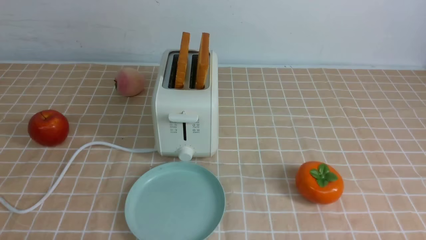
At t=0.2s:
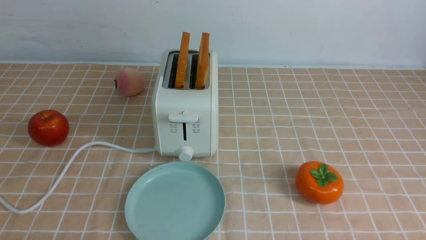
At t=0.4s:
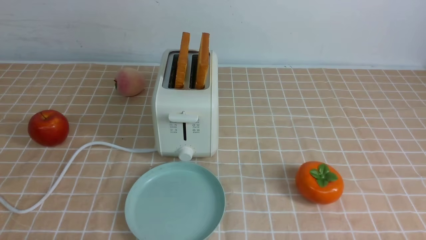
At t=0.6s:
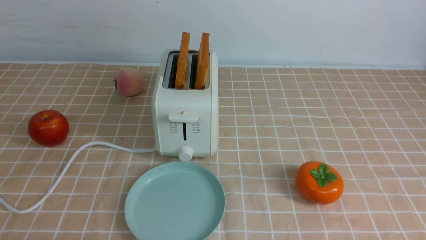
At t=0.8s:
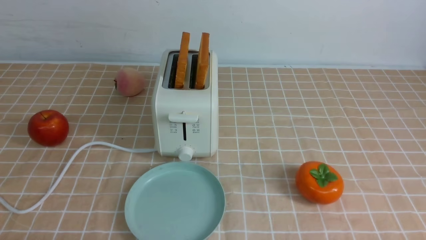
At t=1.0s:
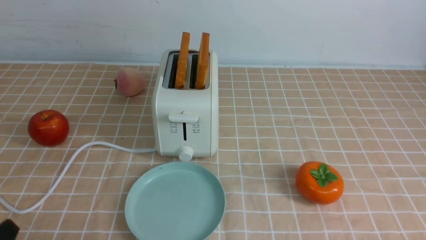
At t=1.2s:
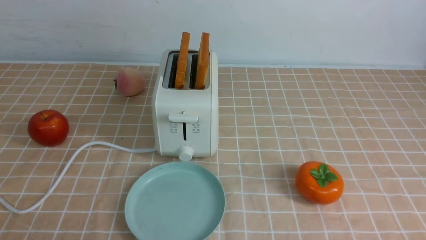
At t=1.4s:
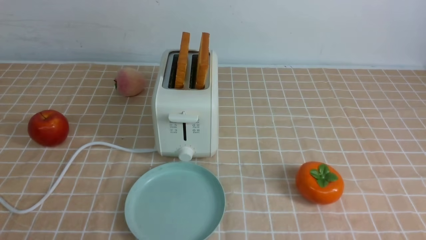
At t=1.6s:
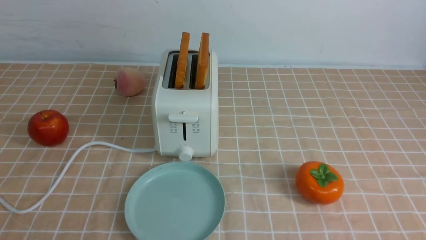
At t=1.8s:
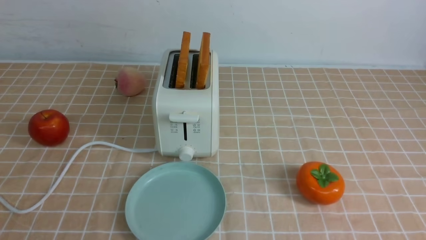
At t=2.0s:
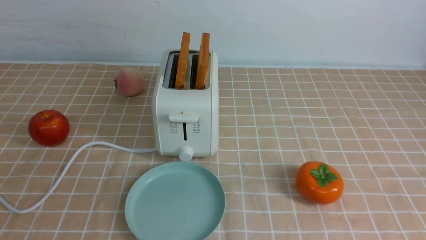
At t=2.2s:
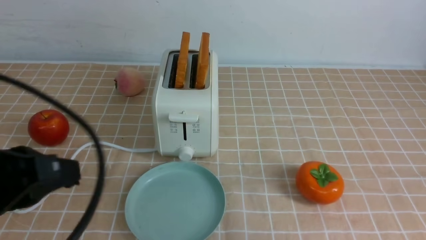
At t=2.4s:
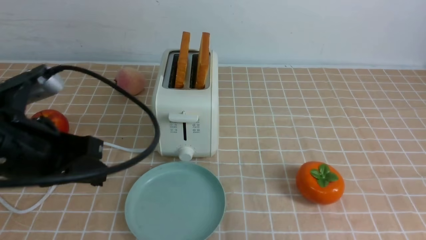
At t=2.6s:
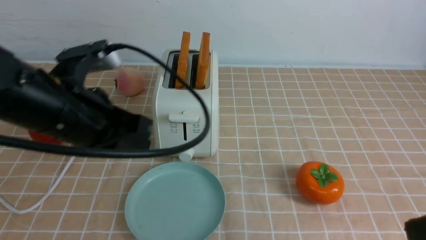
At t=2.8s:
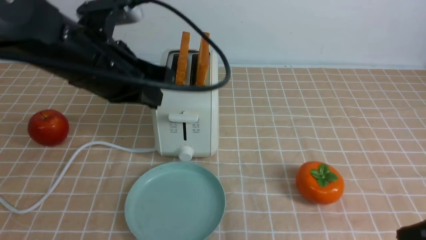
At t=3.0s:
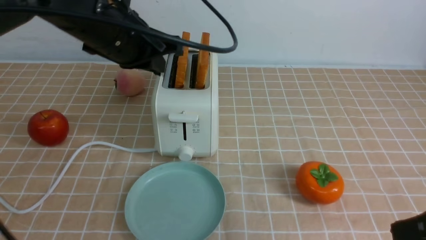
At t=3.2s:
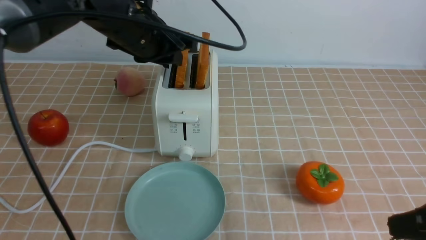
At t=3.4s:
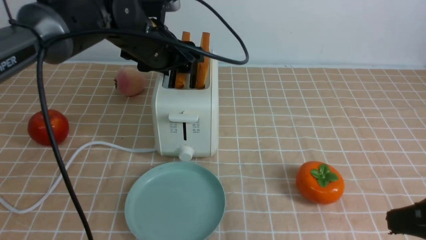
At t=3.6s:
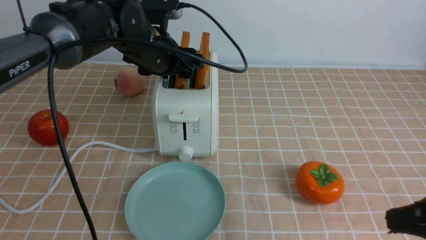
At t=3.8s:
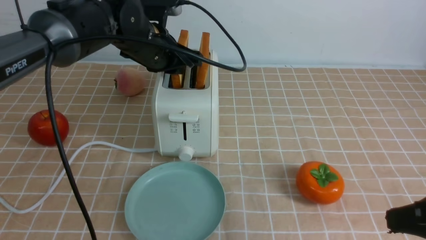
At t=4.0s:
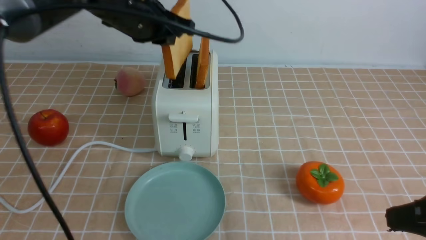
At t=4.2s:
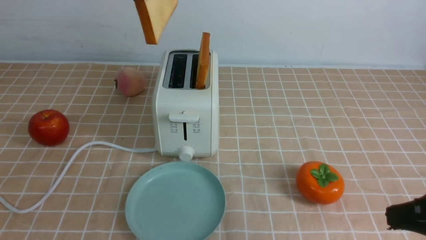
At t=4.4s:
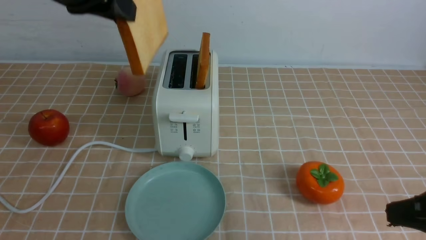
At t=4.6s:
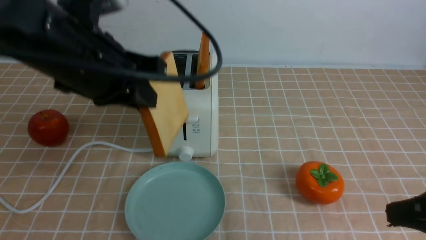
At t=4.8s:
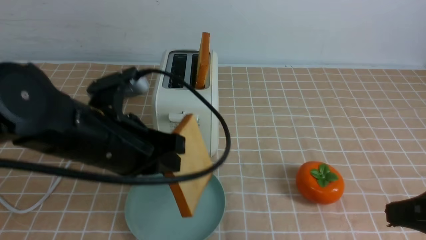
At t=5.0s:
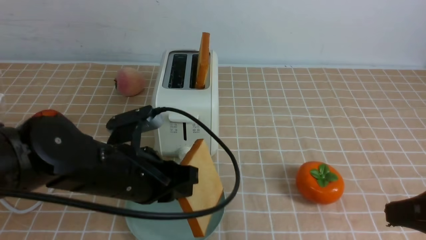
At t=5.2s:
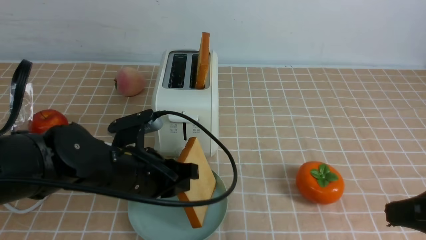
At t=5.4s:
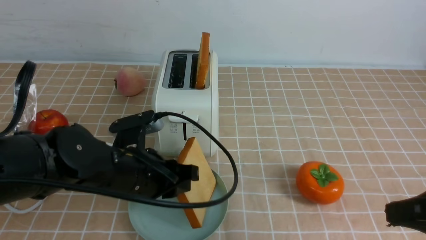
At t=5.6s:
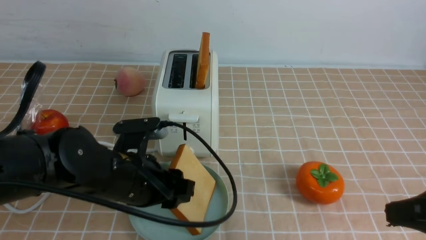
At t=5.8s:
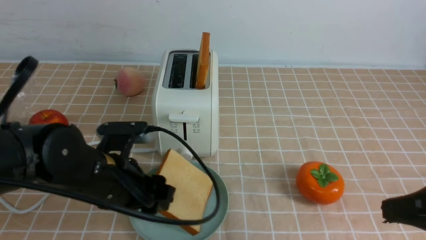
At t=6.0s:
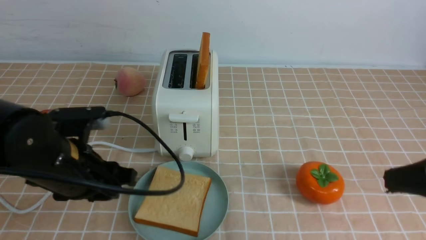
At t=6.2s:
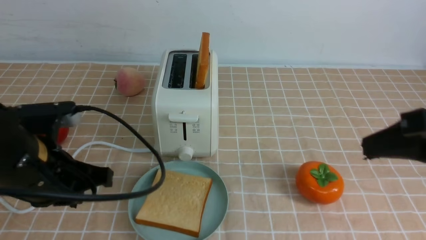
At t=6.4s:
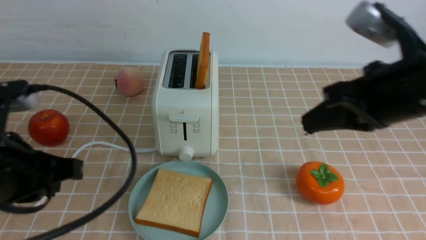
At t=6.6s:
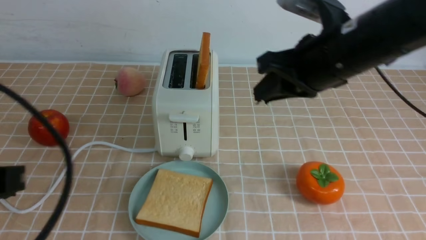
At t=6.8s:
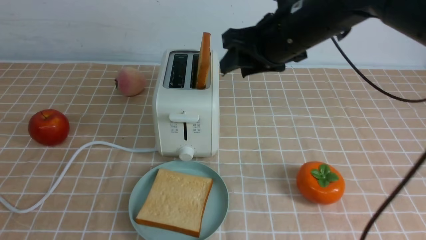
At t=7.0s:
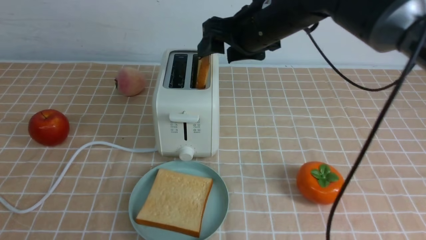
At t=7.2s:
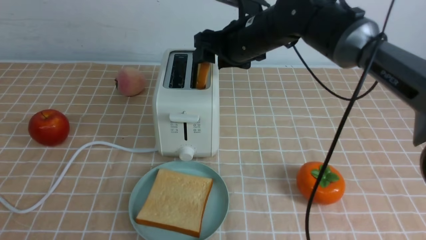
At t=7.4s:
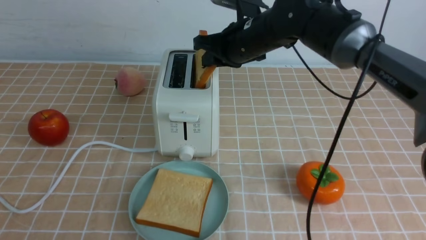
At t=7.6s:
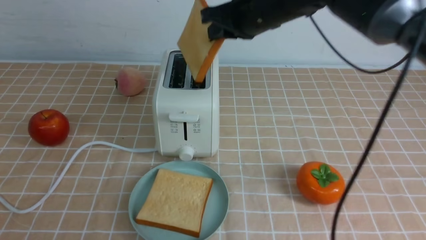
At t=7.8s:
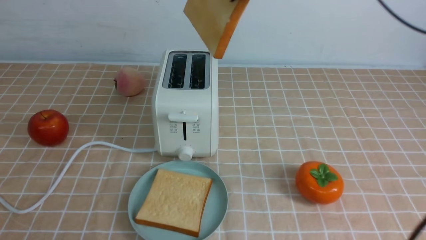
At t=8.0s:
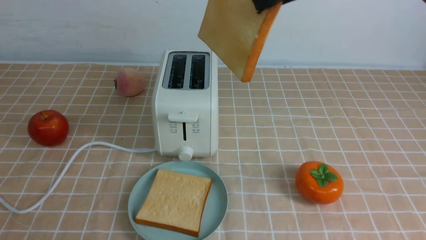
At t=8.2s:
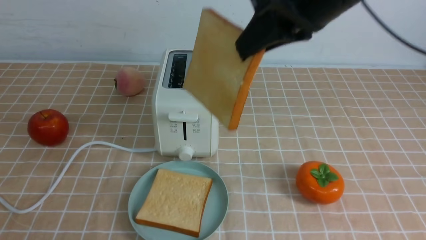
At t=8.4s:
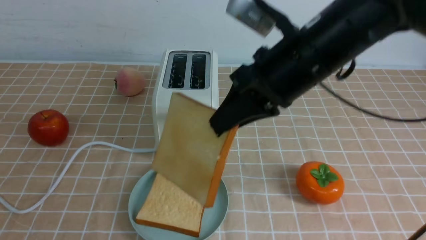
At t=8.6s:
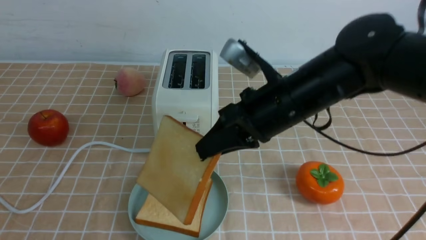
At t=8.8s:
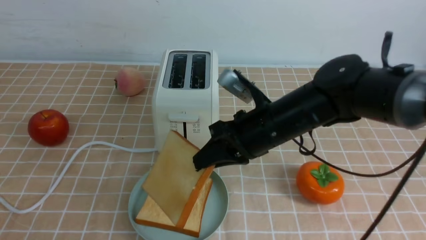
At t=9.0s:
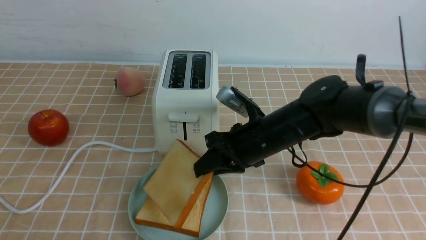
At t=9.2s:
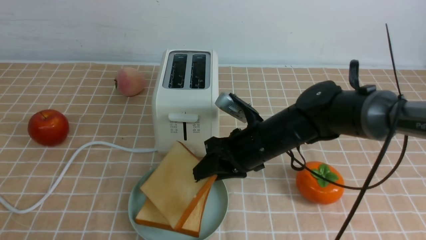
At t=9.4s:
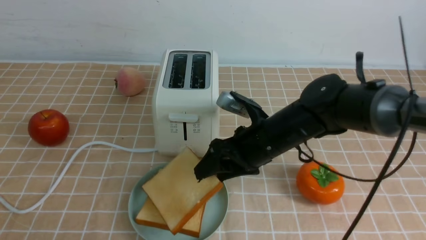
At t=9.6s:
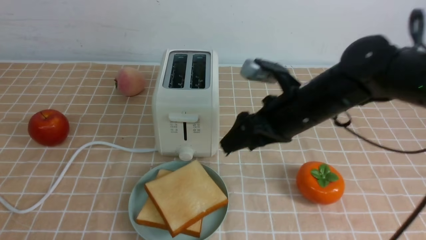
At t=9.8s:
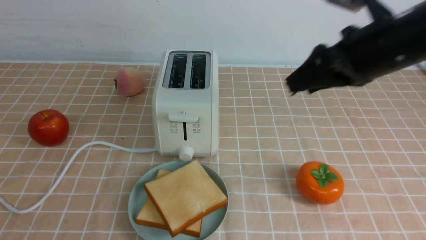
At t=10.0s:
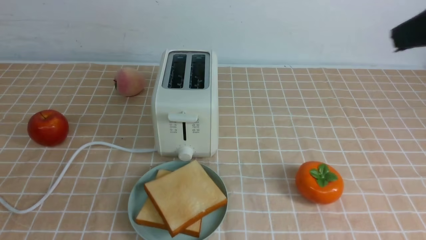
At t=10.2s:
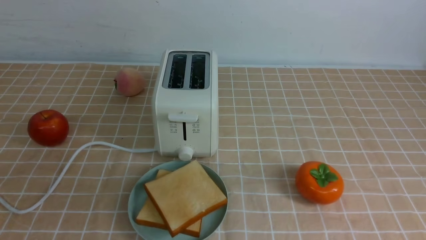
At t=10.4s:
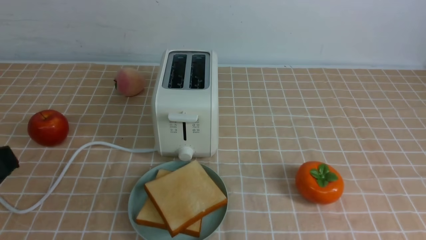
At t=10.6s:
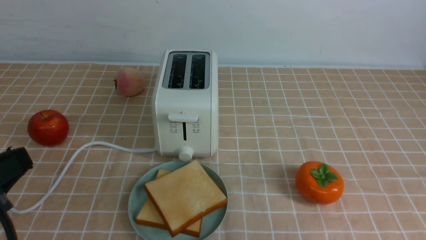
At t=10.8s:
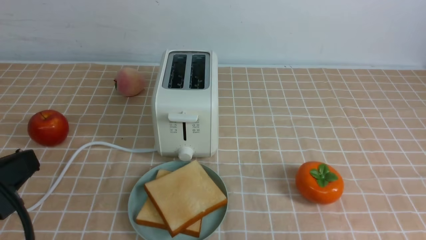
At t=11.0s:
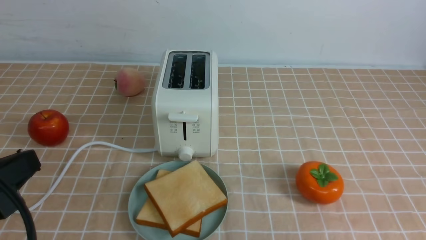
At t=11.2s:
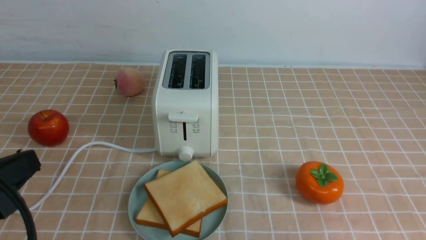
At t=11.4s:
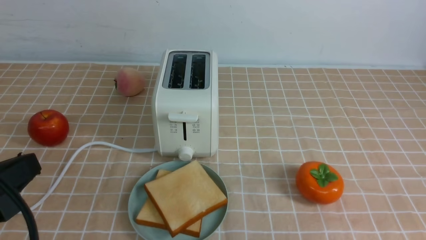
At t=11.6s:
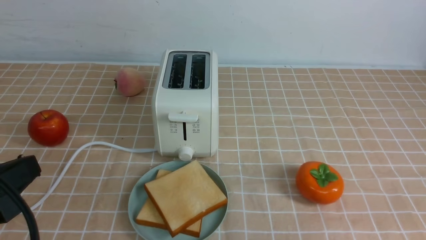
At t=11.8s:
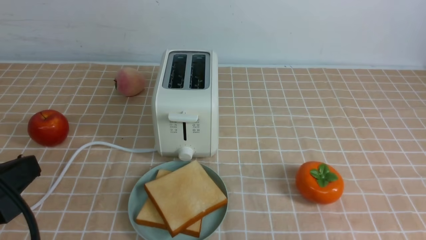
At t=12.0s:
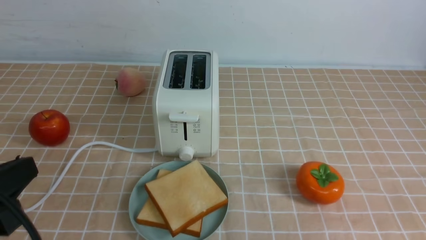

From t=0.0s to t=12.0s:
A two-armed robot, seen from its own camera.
Task of the whole recording: take toasted bread from bread machine on light coffee tablecloth place on plate.
Step, from t=0.0s to t=3.8s: use the left arm to take out a slice of bread.
Step, from t=4.2s to t=5.8s: use the left arm to put a slice of bread into the empty plate.
Step, from t=6.0s to t=7.6s: use the right arm to take out a slice of bread.
Step, from t=7.8s to t=9.4s: use the right arm to put a slice of bread into the plate.
From t=1.6s to t=3.0s: The left gripper goes approximately 35 cm forward, to the right and upward. Meanwhile the right gripper heads upward and forward, covering approximately 10 cm, and closes its fingers.
From t=3.0s to t=4.4s: The left gripper goes approximately 10 cm upward, and opens, then closes once more.
From t=4.4s to t=6.0s: The left gripper travels downward by some 20 cm, and opens up.
From t=6.0s to t=7.6s: The right gripper is displaced forward and to the left by roughly 35 cm, and opens, then closes once more, while the left gripper is displaced backward and to the left by roughly 25 cm, and closes.
From t=7.6s to t=9.0s: The right gripper is displaced downward and backward by some 15 cm.
From t=9.0s to t=10.4s: The left gripper changes place by some 5 cm; the right gripper is displaced to the right, backward and upward by about 35 cm, and opens, then closes again.
From t=10.4s to t=12.0s: The right gripper moves downward, approximately 15 cm.

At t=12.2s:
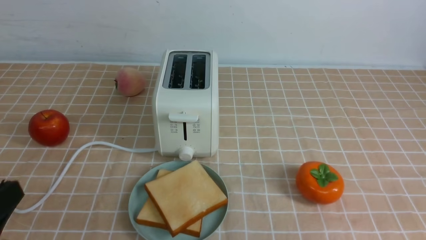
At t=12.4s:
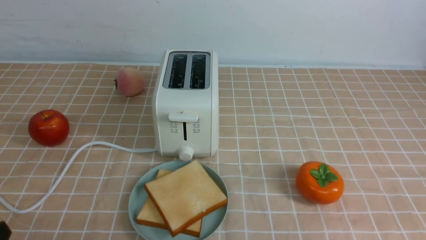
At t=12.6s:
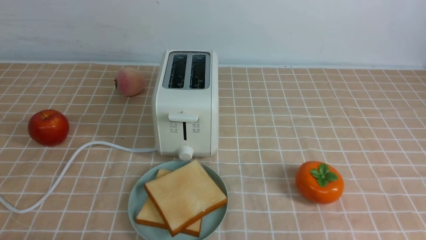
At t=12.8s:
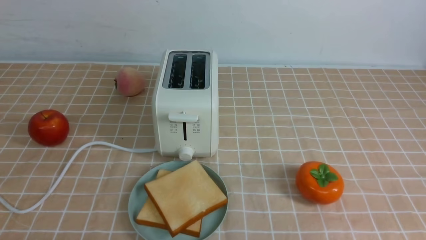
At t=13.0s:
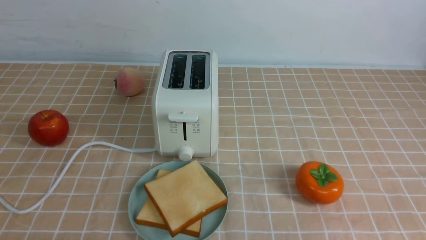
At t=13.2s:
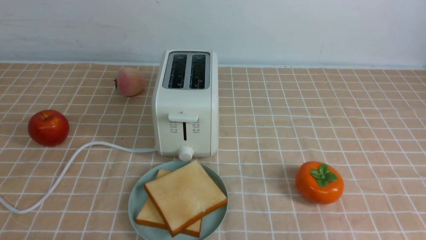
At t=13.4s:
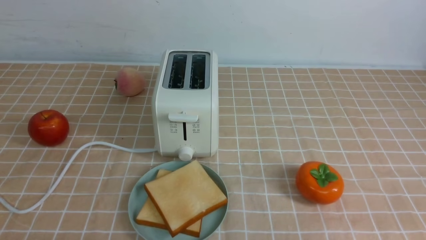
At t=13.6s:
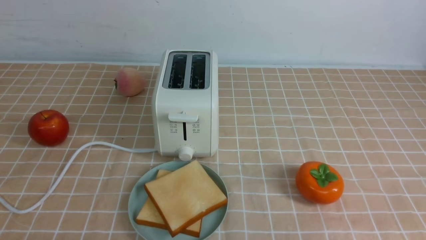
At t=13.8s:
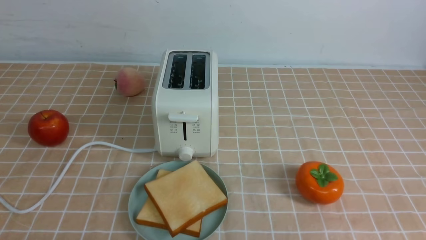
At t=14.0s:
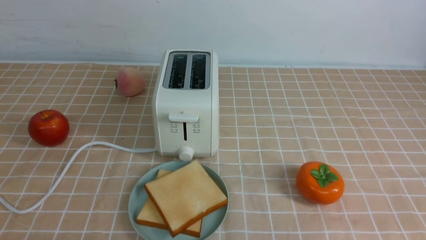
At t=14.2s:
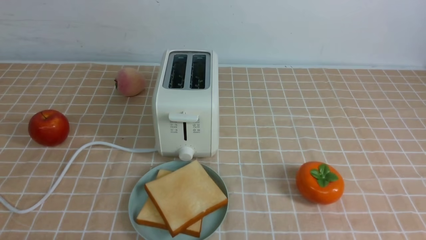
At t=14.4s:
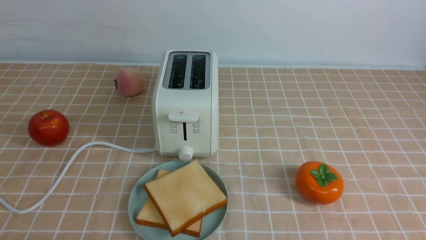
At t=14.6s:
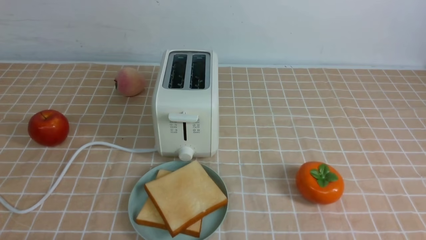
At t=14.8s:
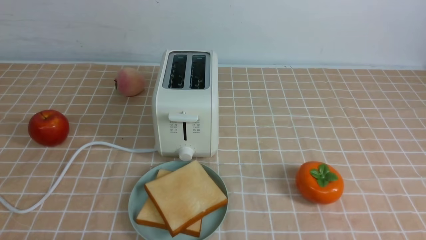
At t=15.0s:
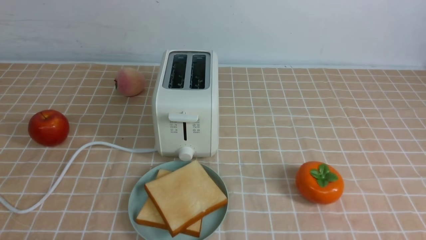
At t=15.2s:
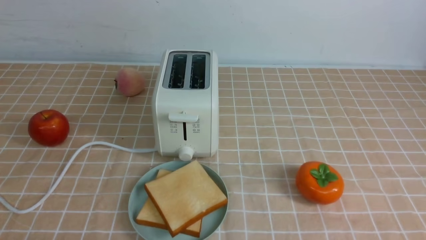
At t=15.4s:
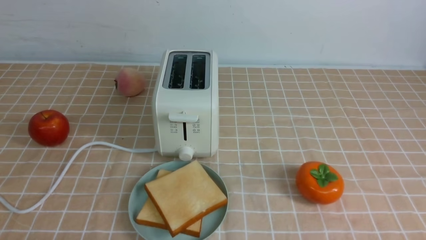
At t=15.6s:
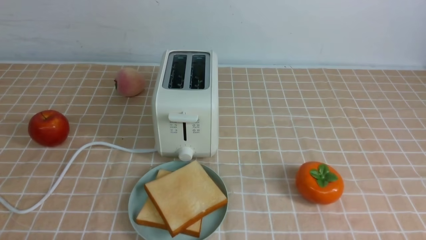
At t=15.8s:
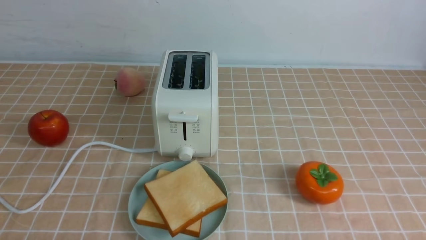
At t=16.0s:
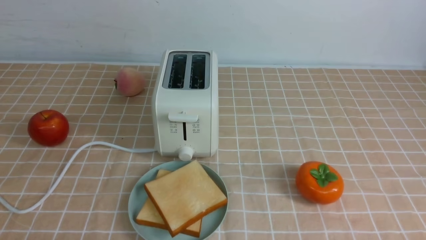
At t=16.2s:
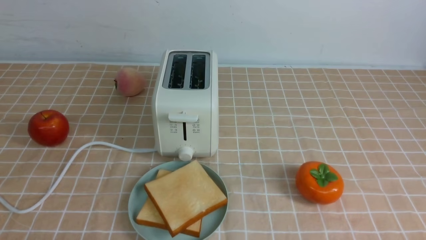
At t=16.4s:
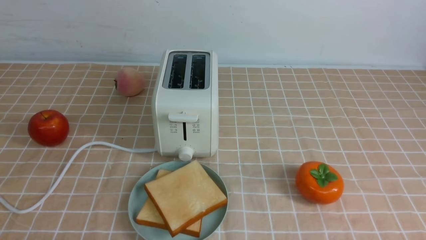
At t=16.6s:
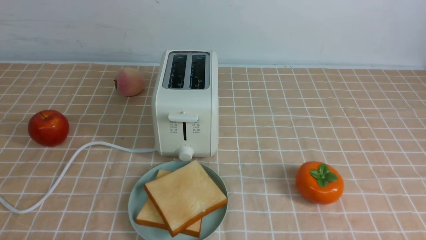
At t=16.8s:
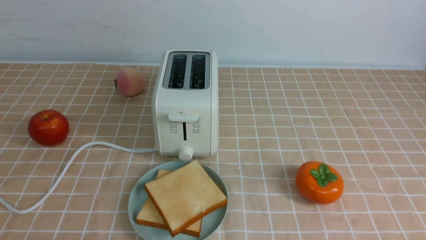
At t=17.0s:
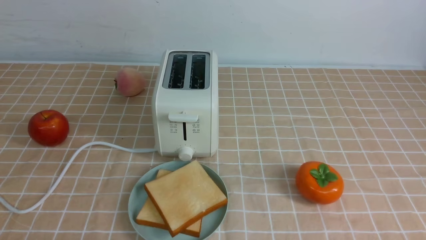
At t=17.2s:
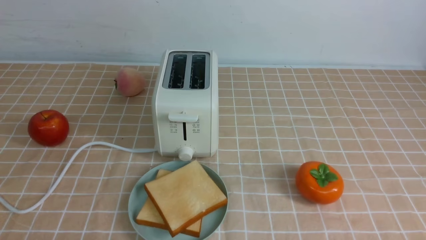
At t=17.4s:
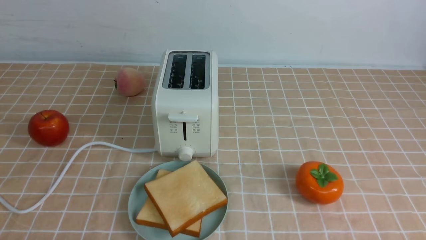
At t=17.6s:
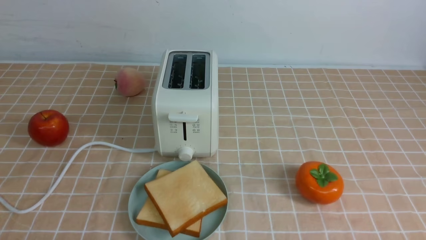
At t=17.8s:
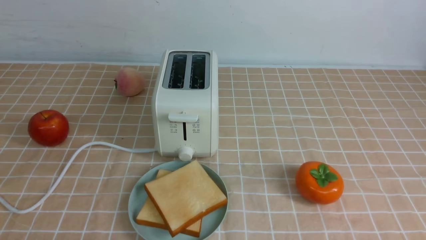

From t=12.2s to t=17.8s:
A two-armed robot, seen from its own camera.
Task of the whole recording: take toasted bread from bread machine on light coffee tablecloth place on plate.
From t=12.2s to t=13.6s: The left gripper heads downward, covering approximately 10 cm.
From t=16.4s to t=17.8s: The two grippers keep their place.
